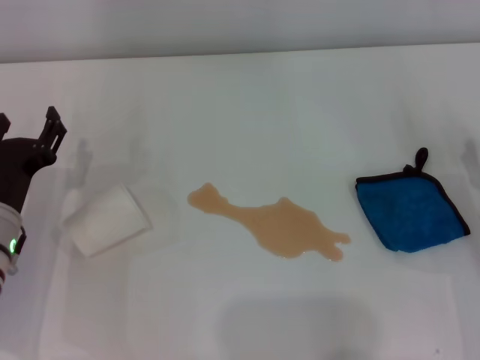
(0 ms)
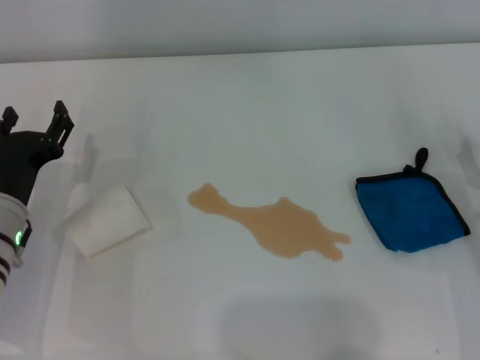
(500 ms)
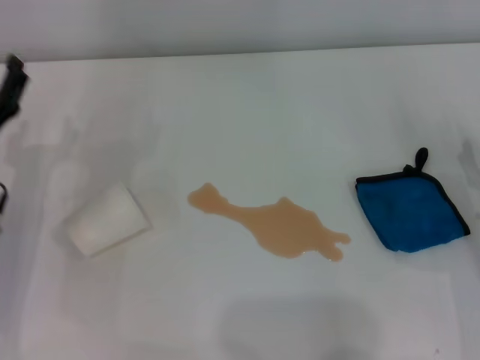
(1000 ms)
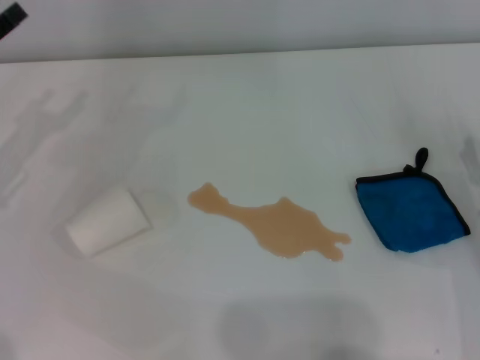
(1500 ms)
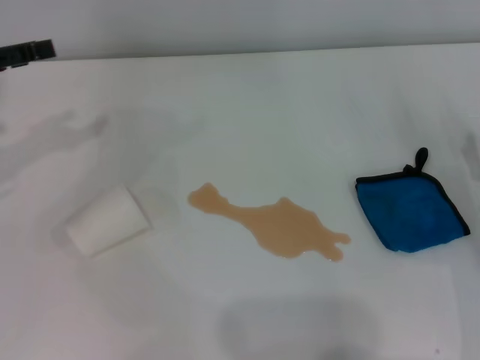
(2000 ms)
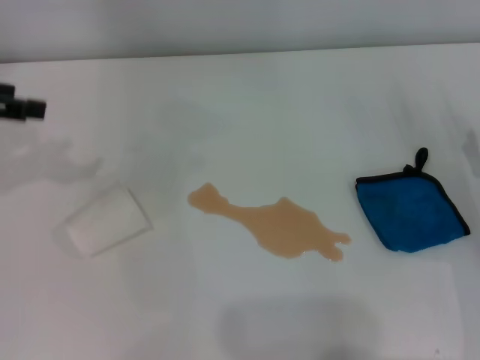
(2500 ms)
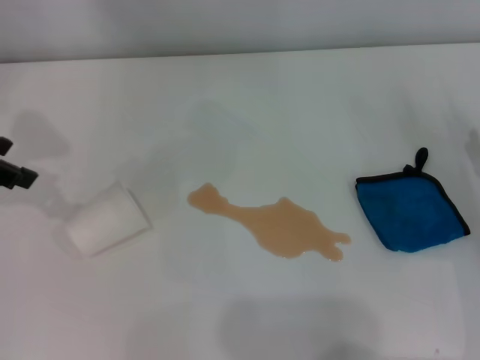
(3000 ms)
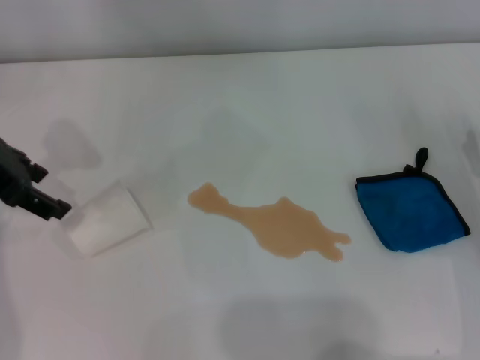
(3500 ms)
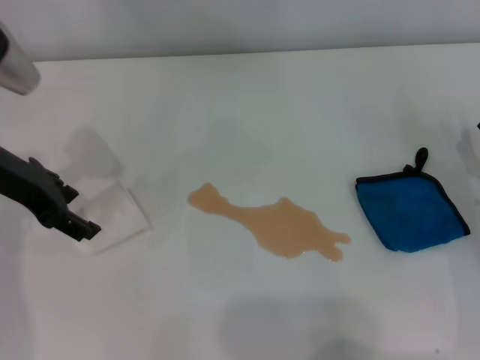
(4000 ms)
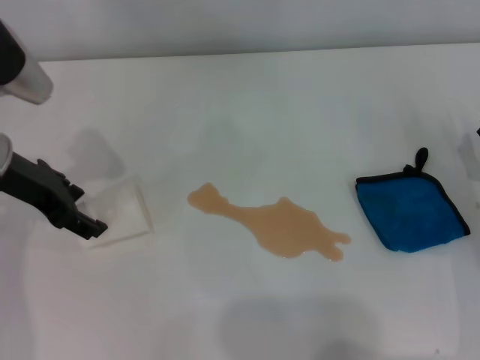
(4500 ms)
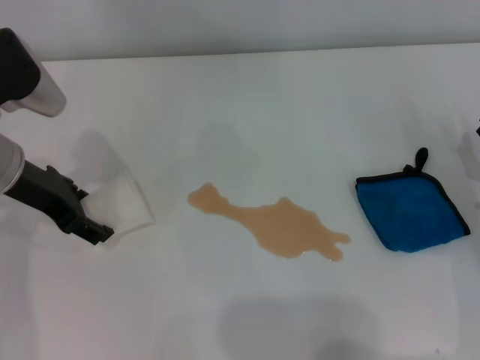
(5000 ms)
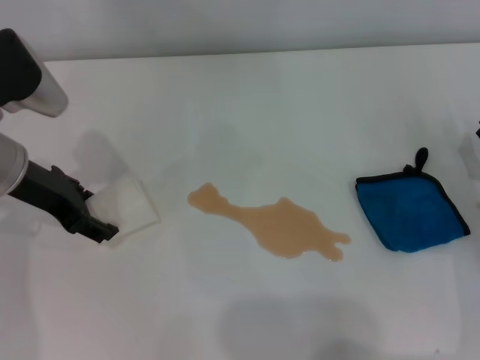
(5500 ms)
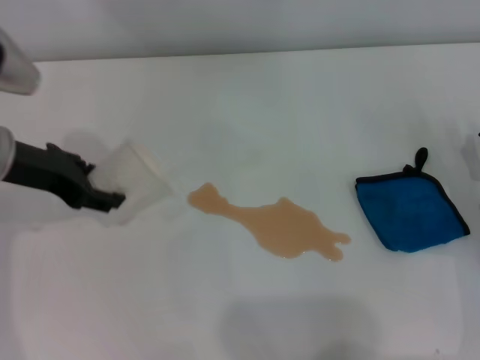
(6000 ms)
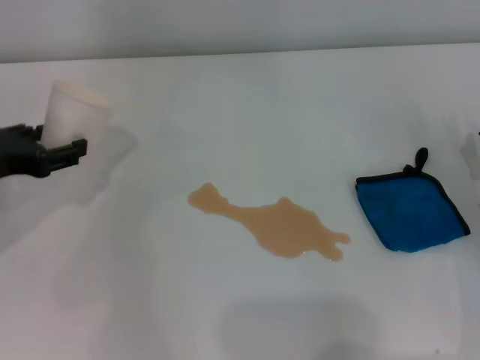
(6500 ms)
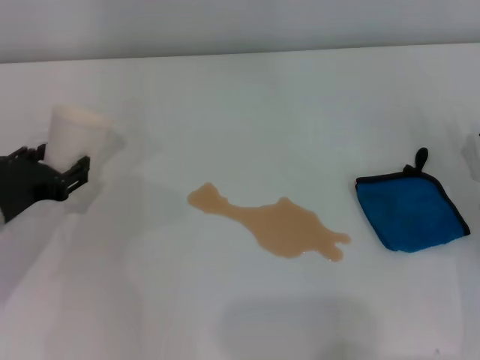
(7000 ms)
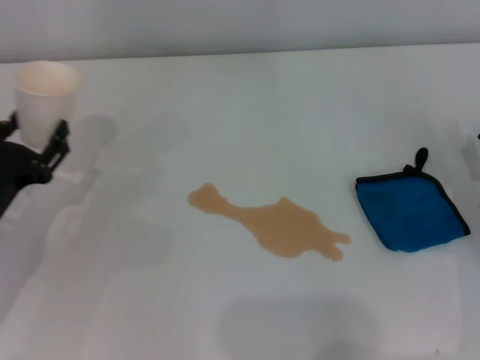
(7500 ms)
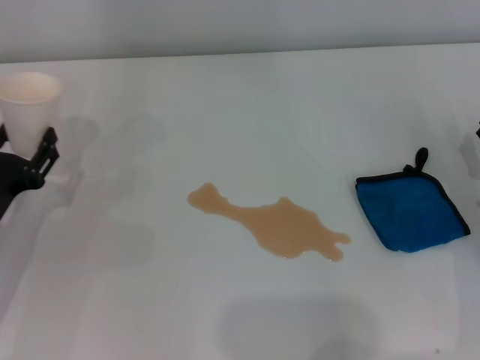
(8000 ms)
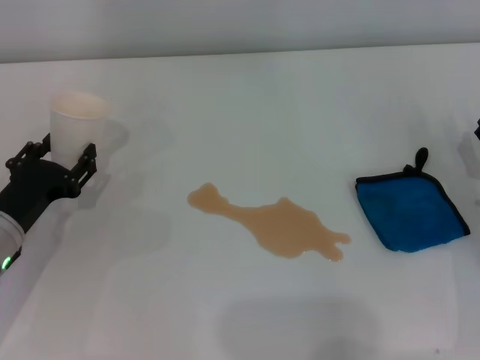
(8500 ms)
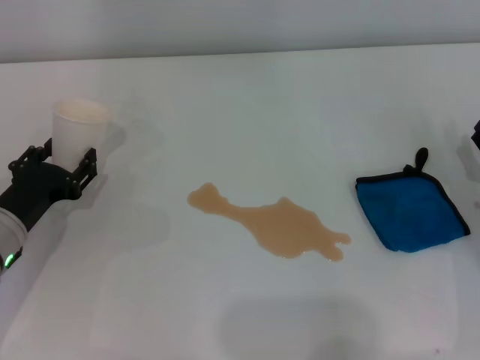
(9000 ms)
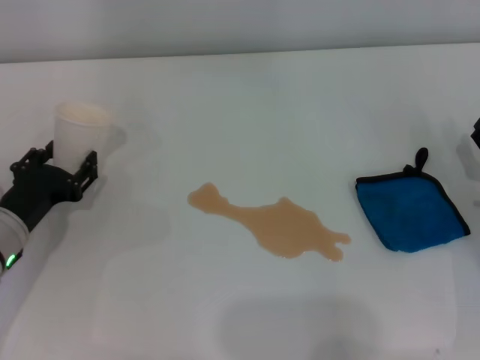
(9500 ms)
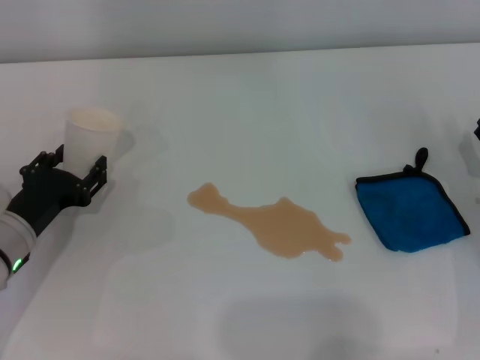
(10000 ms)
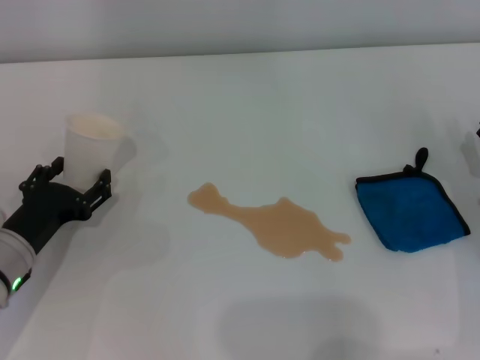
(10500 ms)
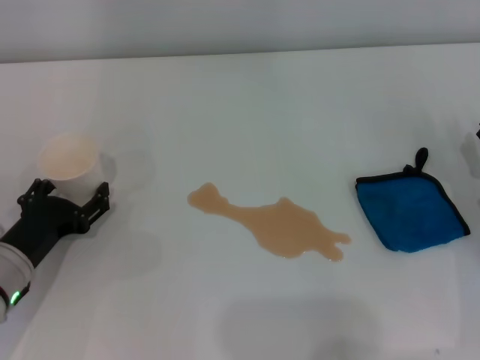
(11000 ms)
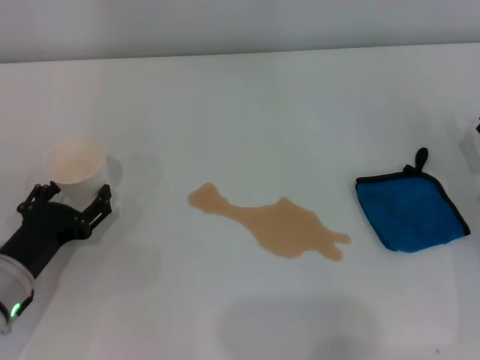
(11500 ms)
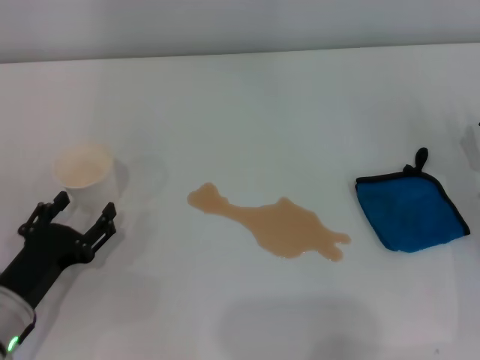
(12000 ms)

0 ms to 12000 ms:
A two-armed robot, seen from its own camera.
Step, 0 ms to 5000 ms: Grasp the paper cup with the left gripper.
Step, 6000 ms to 11000 ms: Stand the paper cup upright with the left gripper.
0 ms to 2000 ms: The left gripper goes approximately 20 cm upward, to the left and forward.
2000 ms to 4000 ms: The left gripper travels to the right by some 10 cm.
4000 ms to 6000 ms: The left gripper closes.
6000 ms to 8000 ms: The left gripper is displaced downward and backward by some 15 cm.
8000 ms to 10000 ms: The grippers move only a little.
10000 ms to 12000 ms: The left gripper goes approximately 10 cm backward, and opens its fingers.

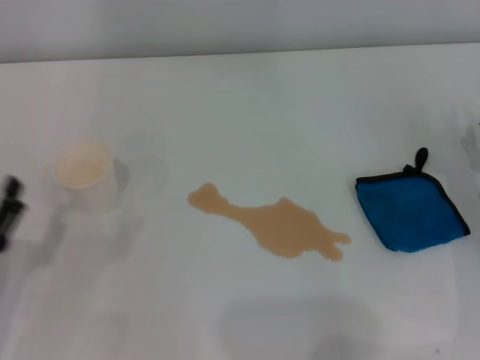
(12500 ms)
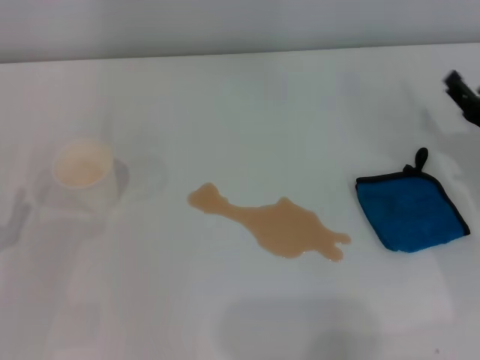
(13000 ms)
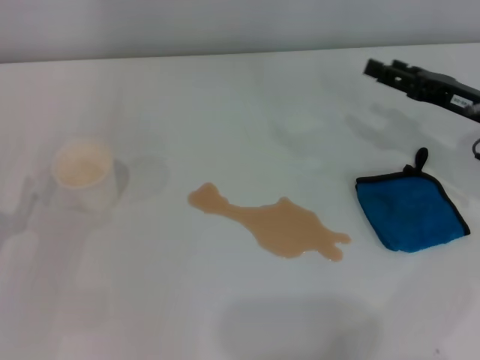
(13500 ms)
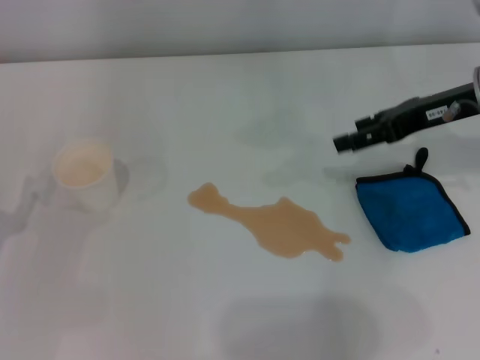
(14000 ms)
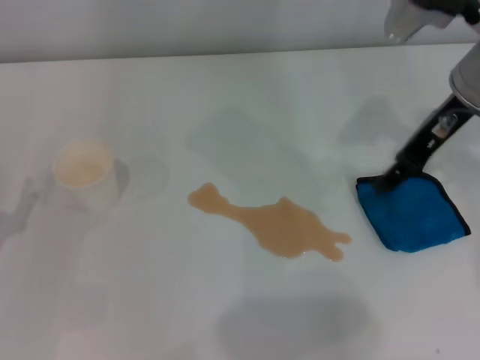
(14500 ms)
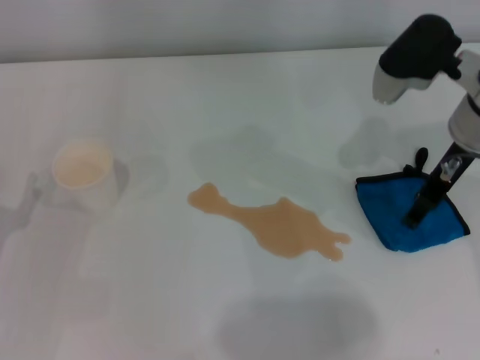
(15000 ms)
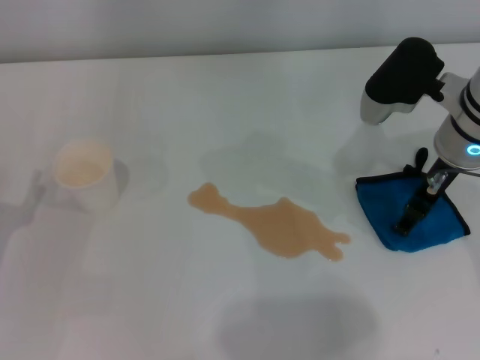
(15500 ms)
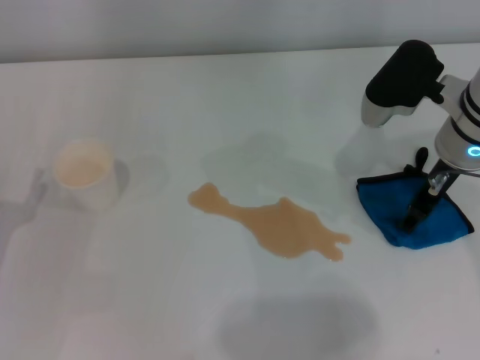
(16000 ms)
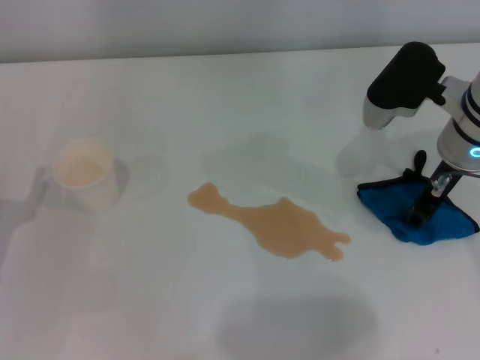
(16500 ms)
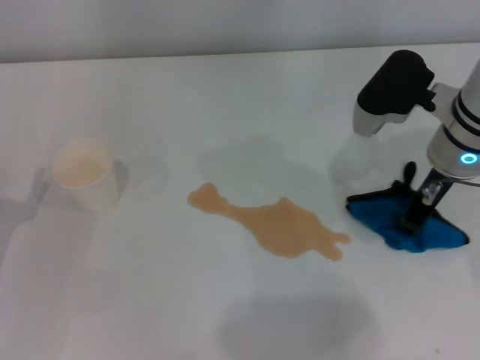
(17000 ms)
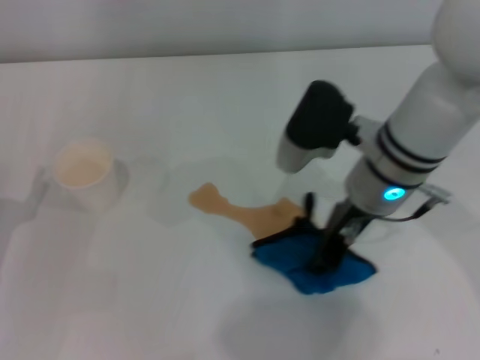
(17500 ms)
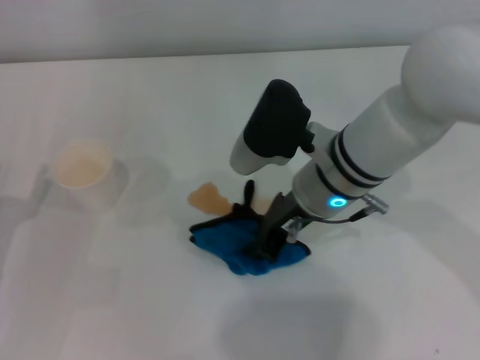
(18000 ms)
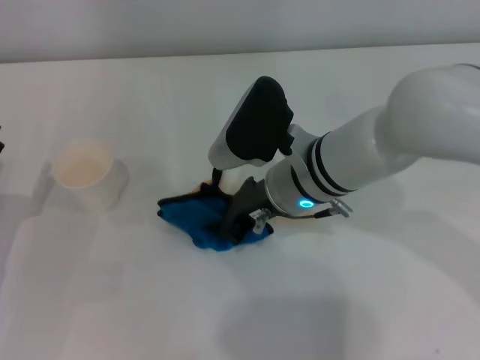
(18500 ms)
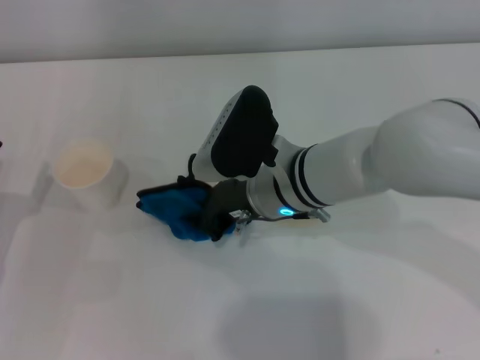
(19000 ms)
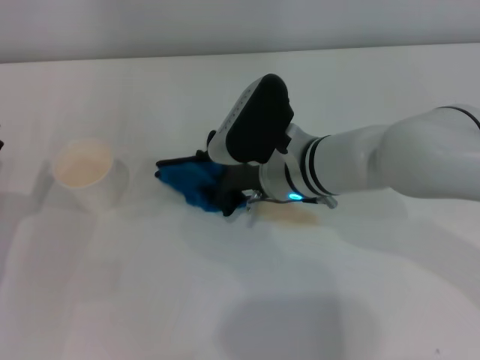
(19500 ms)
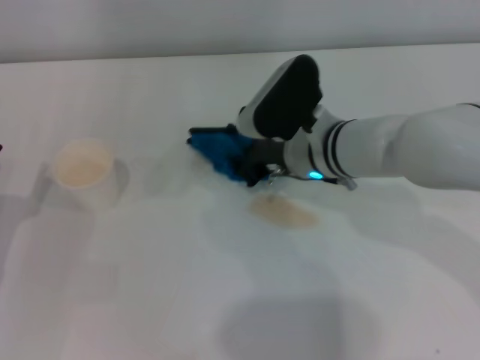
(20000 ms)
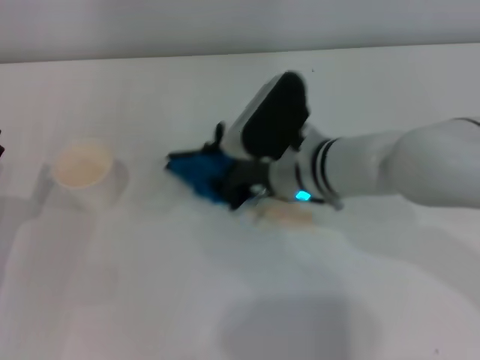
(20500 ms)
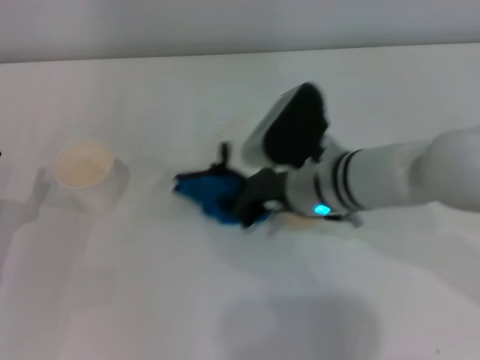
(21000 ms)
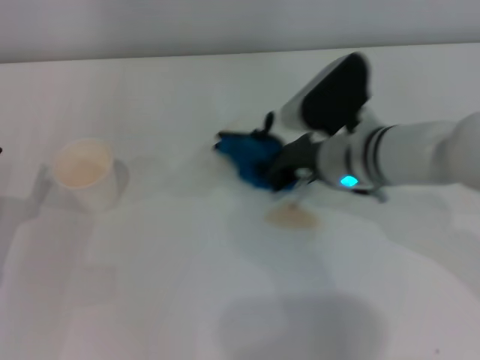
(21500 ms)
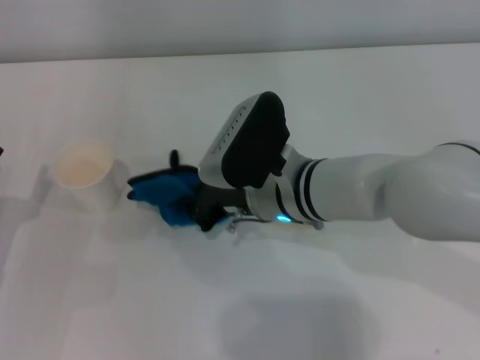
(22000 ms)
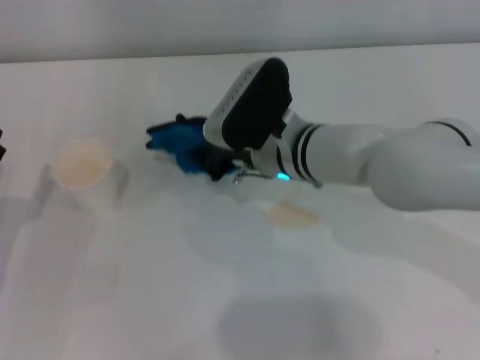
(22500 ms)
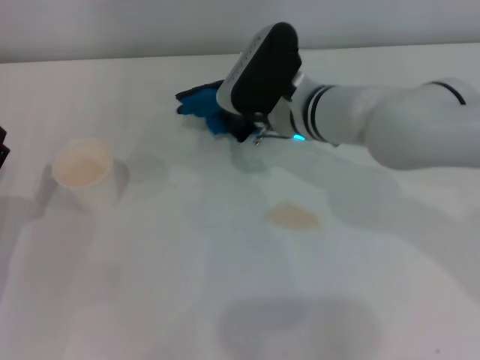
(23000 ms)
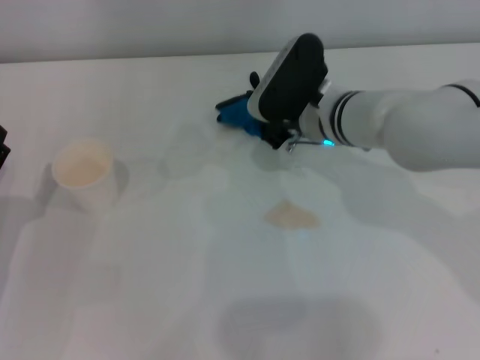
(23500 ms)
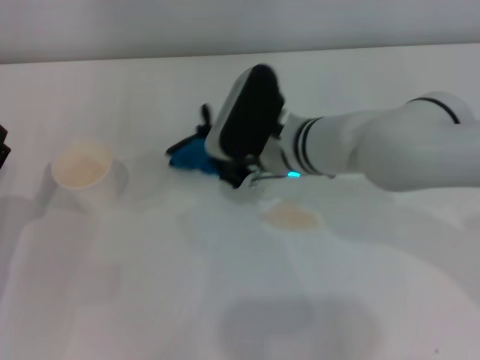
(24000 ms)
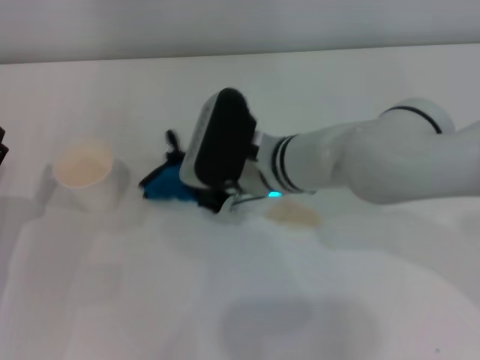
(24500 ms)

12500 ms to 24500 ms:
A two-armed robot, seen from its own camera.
Step, 12500 ms to 16500 ms: Grasp the rag with the right gripper.
12500 ms to 14500 ms: The right gripper is displaced upward, forward and to the left by about 25 cm.
14500 ms to 16500 ms: The right gripper is displaced downward by about 5 cm, and closes up.
16500 ms to 18500 ms: The right gripper is displaced to the left by roughly 15 cm, and closes its fingers.
20500 ms to 22500 ms: The right gripper goes to the right and returns, some 5 cm each way.

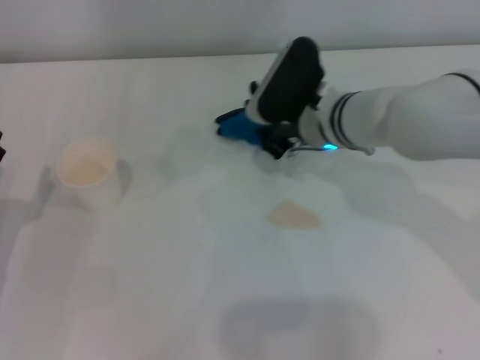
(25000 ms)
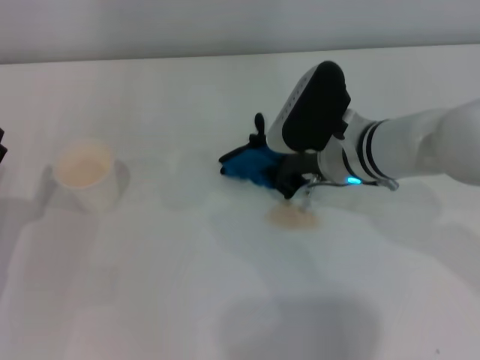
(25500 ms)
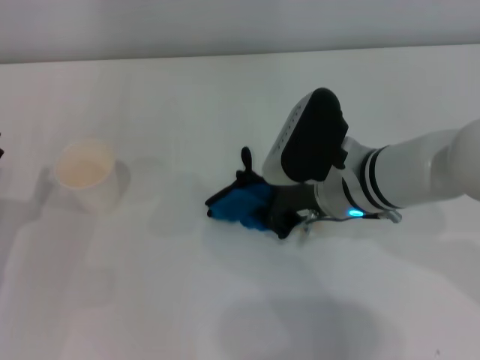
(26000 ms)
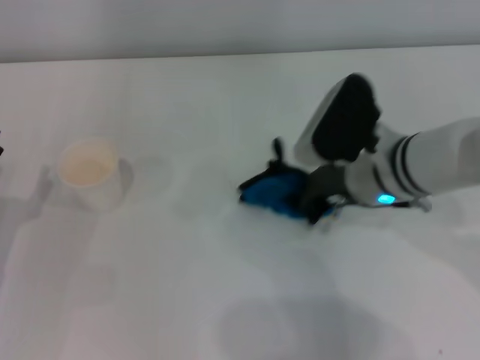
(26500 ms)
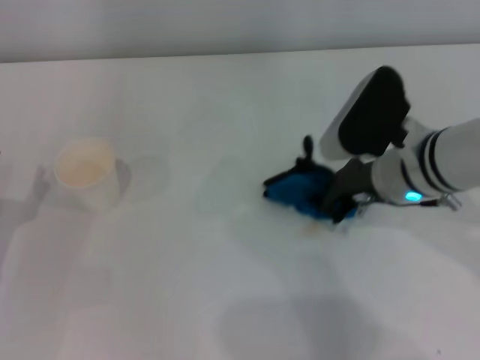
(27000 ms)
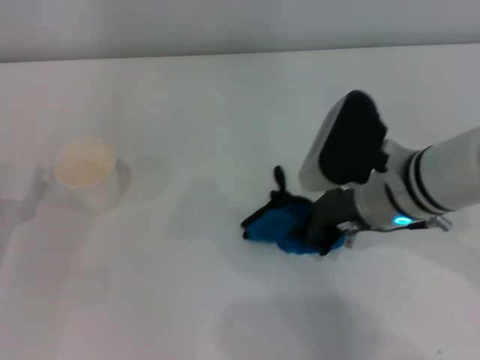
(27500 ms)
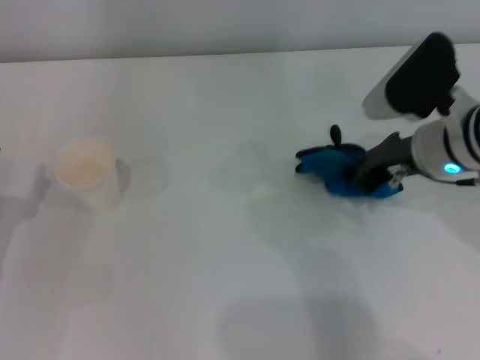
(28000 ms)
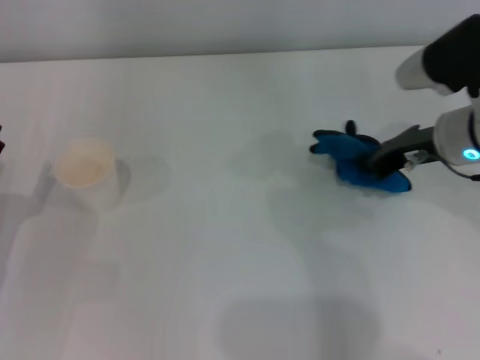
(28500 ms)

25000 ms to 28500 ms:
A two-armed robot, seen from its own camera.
25000 ms to 27000 ms: The right gripper travels backward and to the right by some 10 cm.
27000 ms to 28500 ms: The right gripper heads to the right, covering about 5 cm.
